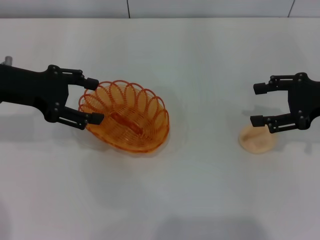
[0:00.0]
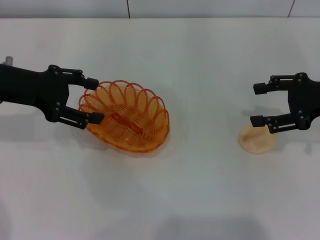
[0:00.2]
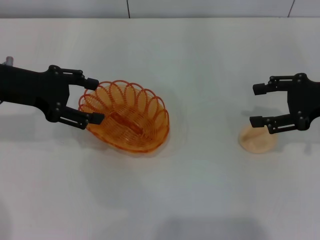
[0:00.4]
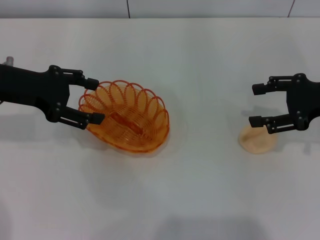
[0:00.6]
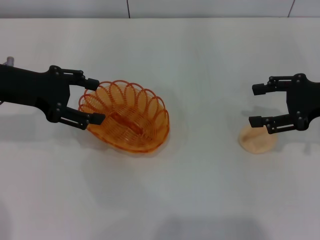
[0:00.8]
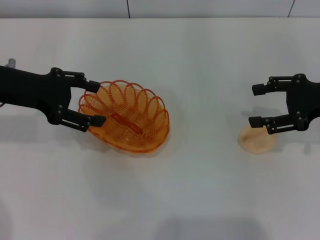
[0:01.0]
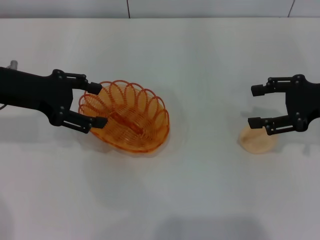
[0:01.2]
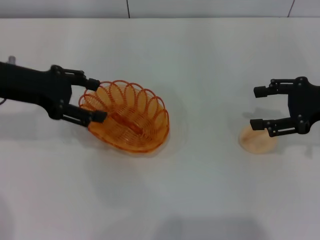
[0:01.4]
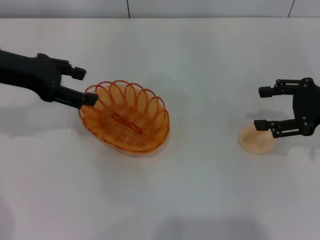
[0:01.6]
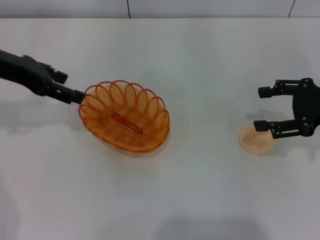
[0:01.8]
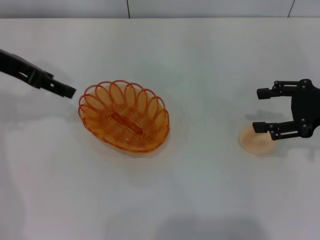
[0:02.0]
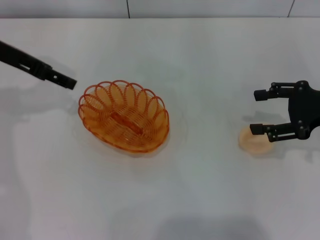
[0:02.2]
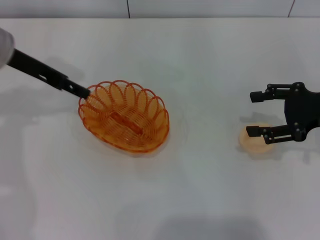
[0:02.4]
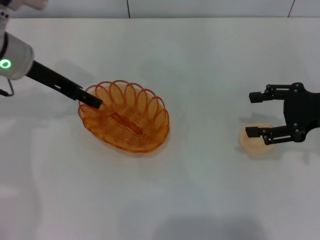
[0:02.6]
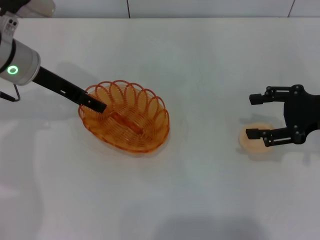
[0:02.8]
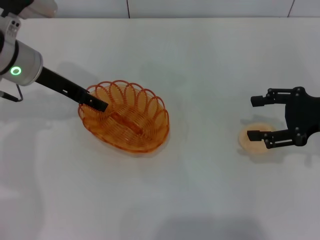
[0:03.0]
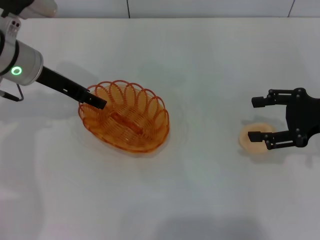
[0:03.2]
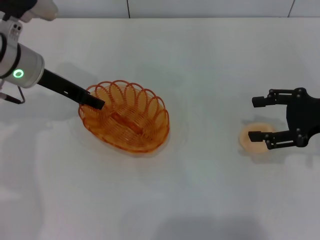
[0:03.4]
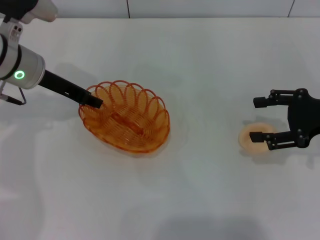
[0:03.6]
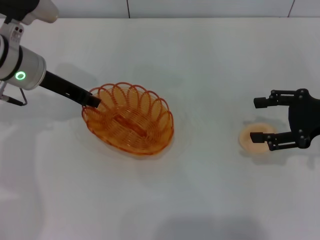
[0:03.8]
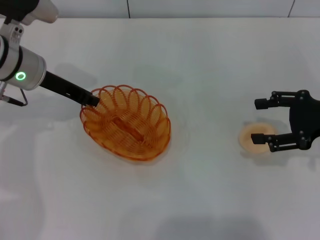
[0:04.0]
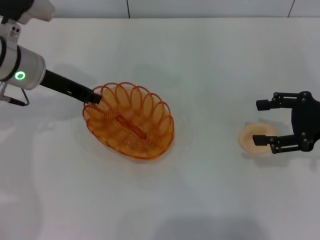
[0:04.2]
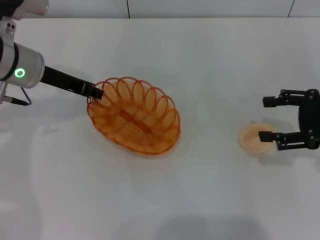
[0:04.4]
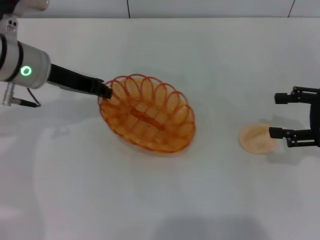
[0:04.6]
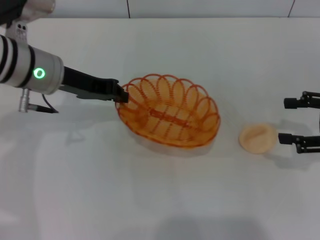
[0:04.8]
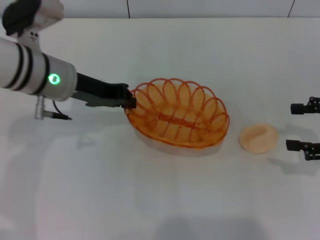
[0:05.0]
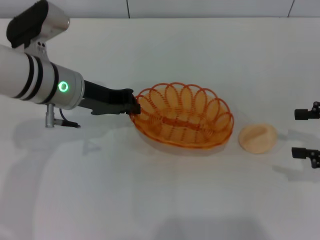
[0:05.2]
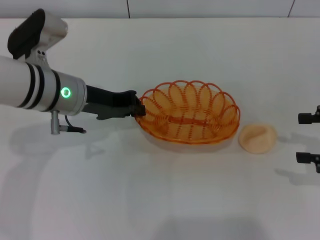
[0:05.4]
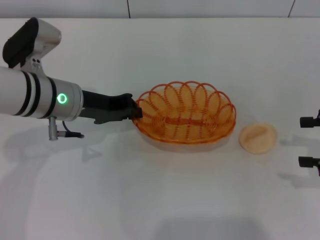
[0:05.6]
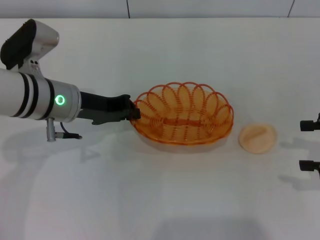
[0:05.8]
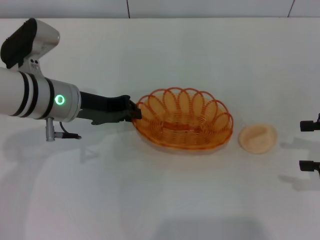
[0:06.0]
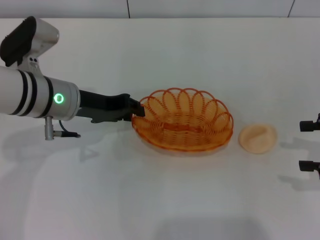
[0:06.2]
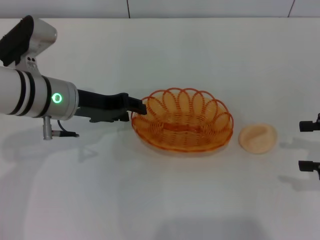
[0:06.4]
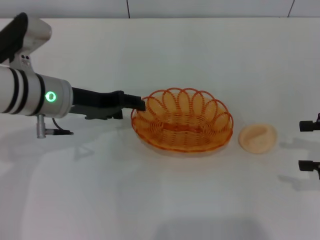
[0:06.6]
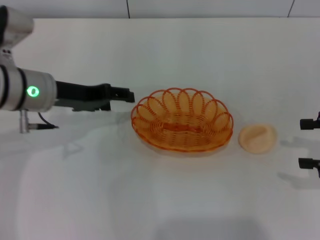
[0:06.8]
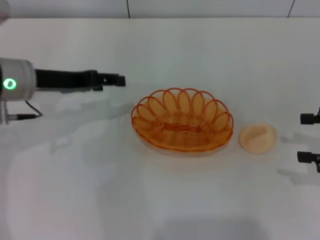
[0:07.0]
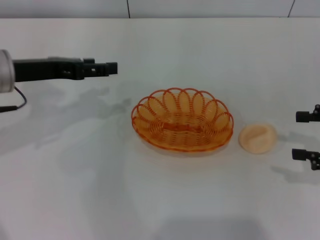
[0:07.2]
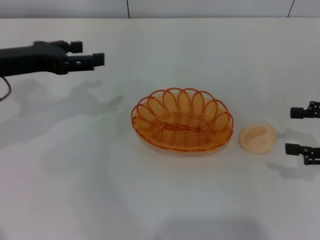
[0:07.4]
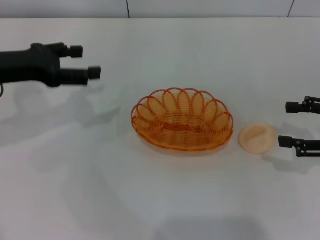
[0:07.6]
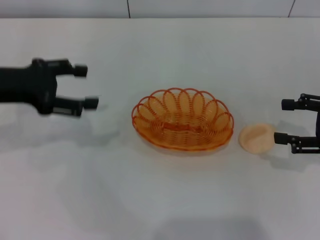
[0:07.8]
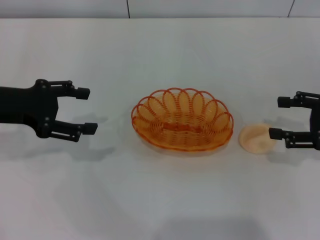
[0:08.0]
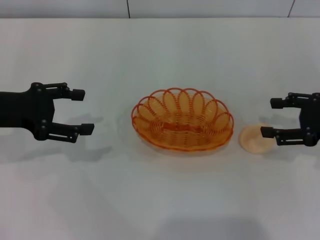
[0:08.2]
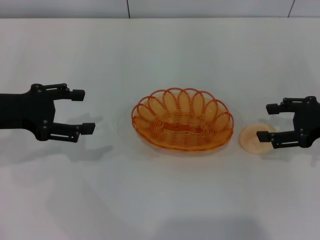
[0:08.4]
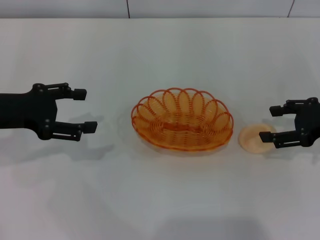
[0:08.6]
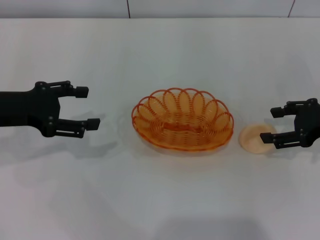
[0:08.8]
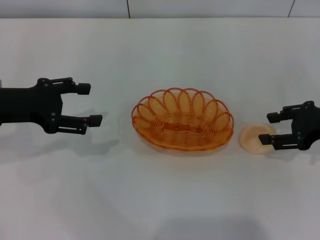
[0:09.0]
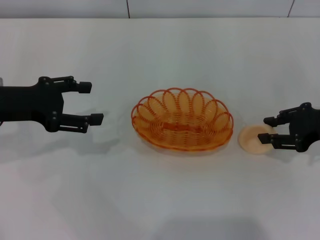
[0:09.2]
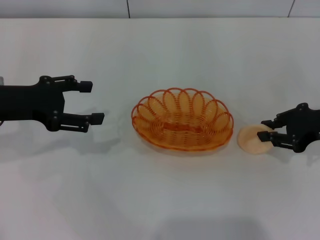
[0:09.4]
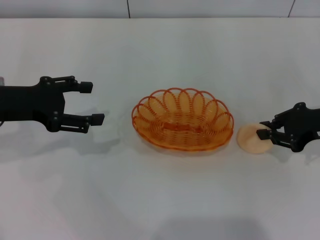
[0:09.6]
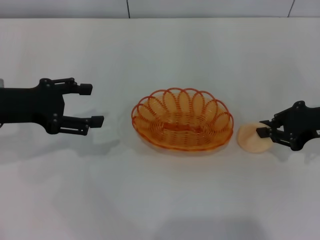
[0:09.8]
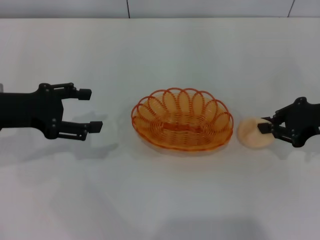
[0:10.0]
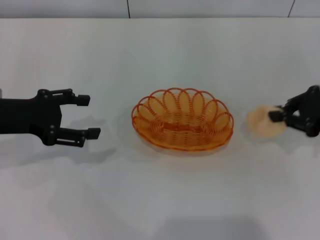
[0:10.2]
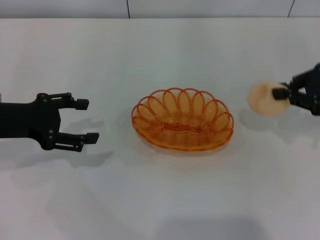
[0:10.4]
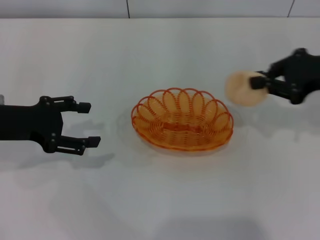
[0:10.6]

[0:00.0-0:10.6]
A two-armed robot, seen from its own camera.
Step, 0:00.0 to 0:04.4: Pick up the basket with the left gripper.
Step, 0:04.6 to 0:06.6: Place the basket in the center of view with the left gripper.
Step, 0:07.0 to 0:10.2: Pick up the egg yolk pastry with the right gripper.
0:00.0 to 0:01.6: The grippers move only a little.
0:01.6 to 0:03.0: The left gripper heads to the right, covering some 5 cm.
0:03.0 to 0:04.6: The left gripper closes up.
0:04.6 to 0:06.0: The left gripper shifts by some 5 cm.
0:06.0 to 0:07.6: The left gripper travels to the left by some 10 cm, and opens.
0:07.6 to 0:09.0: The right gripper moves some 5 cm.
0:09.0 to 0:10.6: The right gripper heads upward, covering about 5 cm, and closes up.

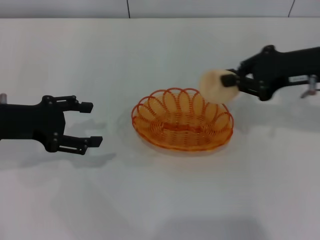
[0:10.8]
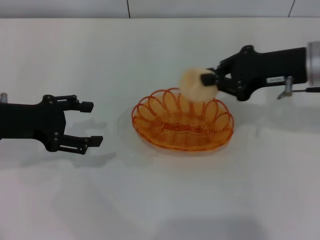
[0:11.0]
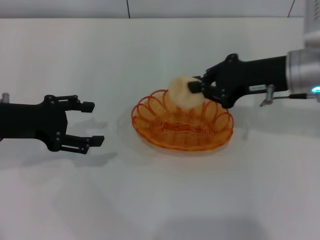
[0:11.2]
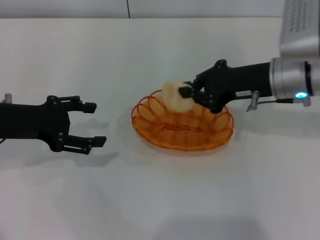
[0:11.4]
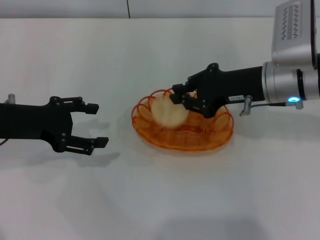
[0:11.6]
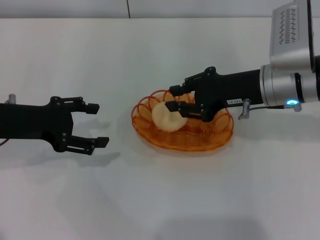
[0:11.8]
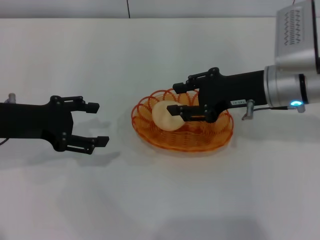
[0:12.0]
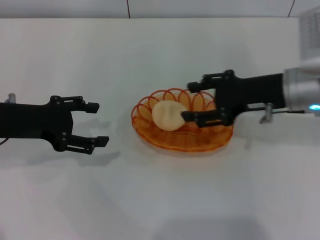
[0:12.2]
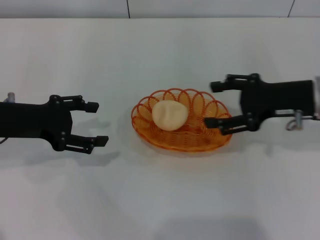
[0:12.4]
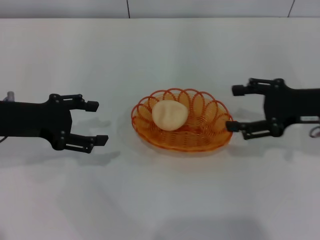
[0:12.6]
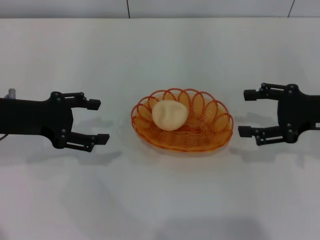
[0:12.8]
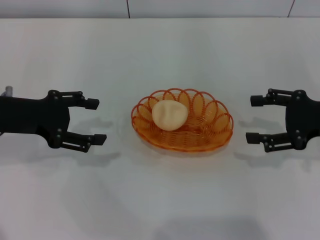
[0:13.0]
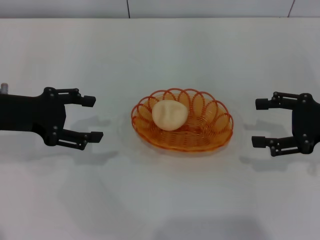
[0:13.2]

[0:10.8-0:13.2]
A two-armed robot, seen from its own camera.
Step, 0:10.8 to 0:12.2: Place the egg yolk pastry into the basket with the right gripper.
0:10.8 to 0:12.0: The right gripper heads to the left, covering about 5 cm.
0:12.0 to 0:13.2: The right gripper goes roughly 15 cm to the right, and opens its fingers.
